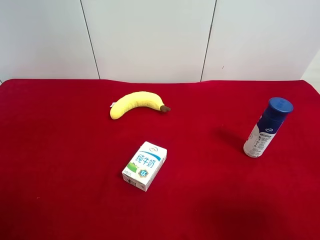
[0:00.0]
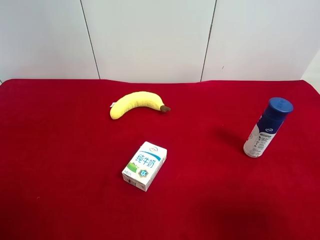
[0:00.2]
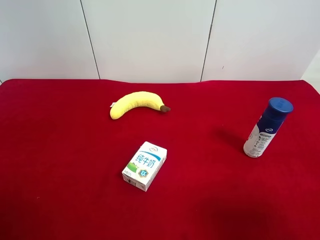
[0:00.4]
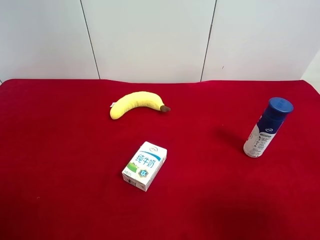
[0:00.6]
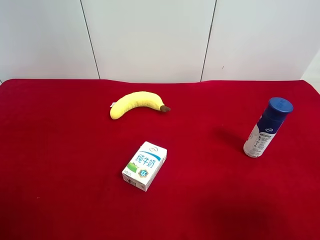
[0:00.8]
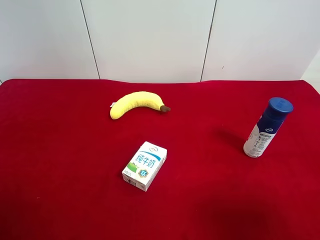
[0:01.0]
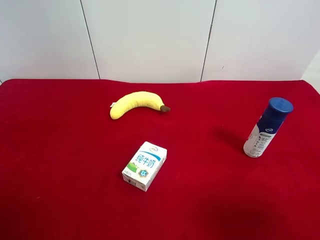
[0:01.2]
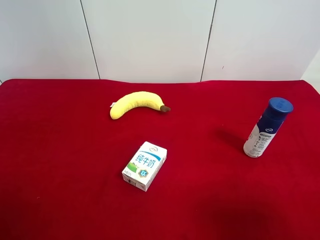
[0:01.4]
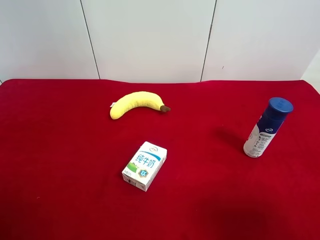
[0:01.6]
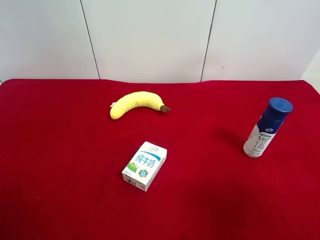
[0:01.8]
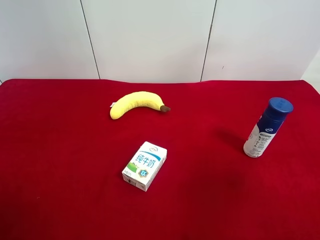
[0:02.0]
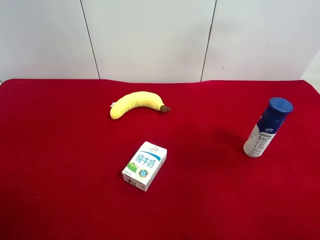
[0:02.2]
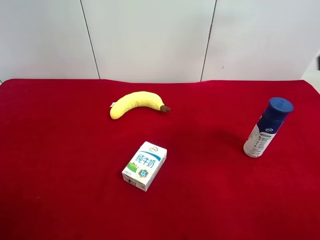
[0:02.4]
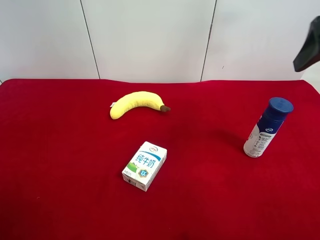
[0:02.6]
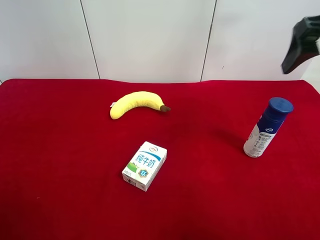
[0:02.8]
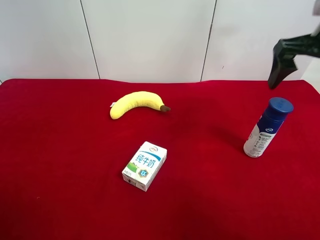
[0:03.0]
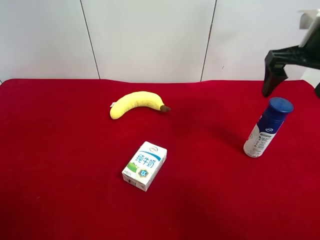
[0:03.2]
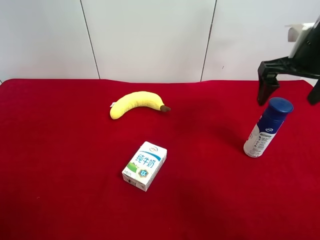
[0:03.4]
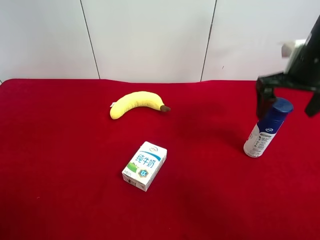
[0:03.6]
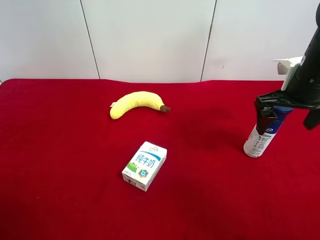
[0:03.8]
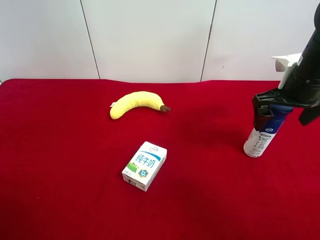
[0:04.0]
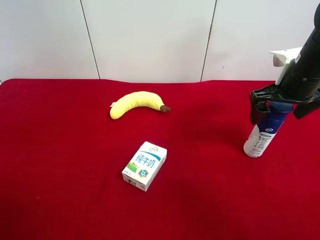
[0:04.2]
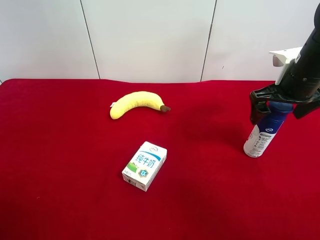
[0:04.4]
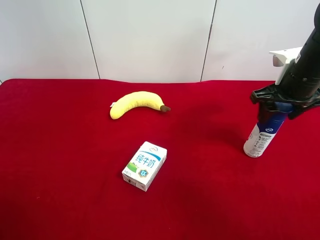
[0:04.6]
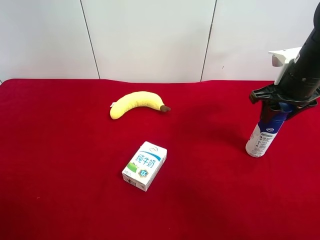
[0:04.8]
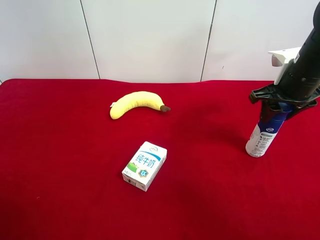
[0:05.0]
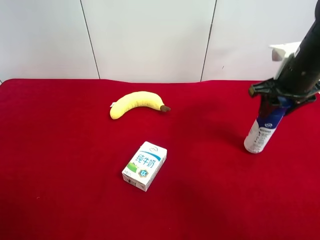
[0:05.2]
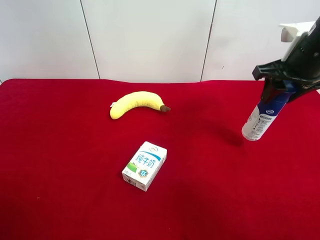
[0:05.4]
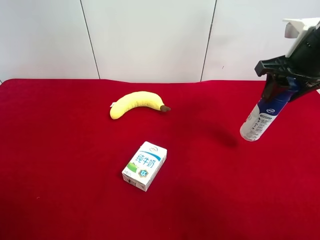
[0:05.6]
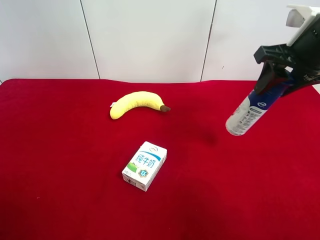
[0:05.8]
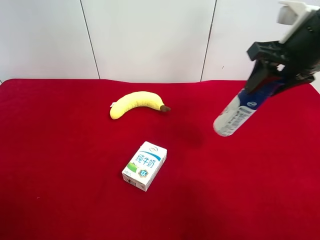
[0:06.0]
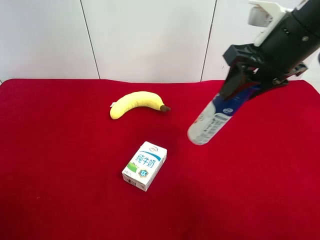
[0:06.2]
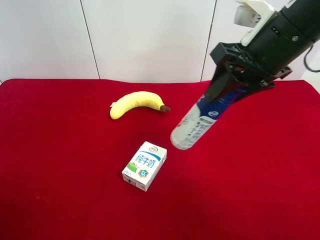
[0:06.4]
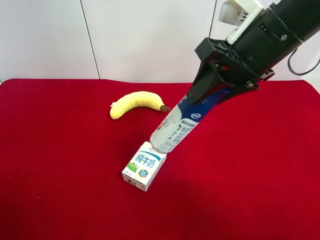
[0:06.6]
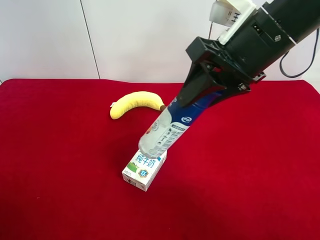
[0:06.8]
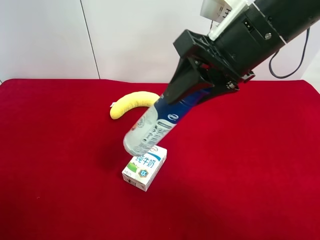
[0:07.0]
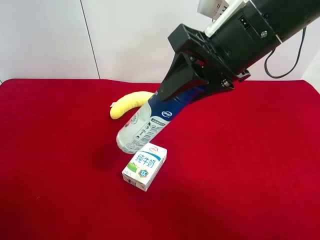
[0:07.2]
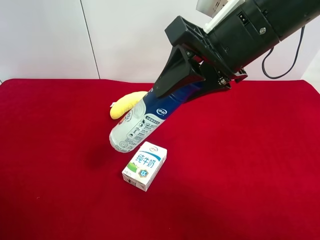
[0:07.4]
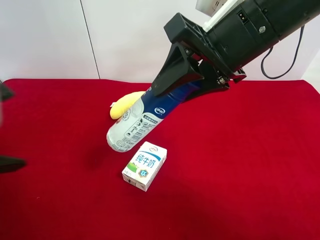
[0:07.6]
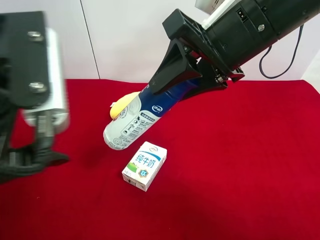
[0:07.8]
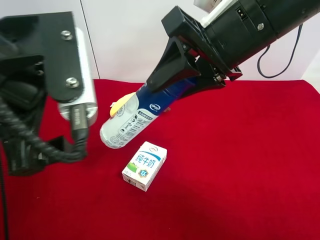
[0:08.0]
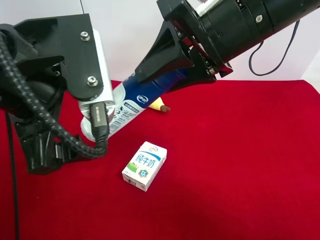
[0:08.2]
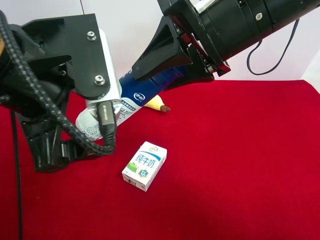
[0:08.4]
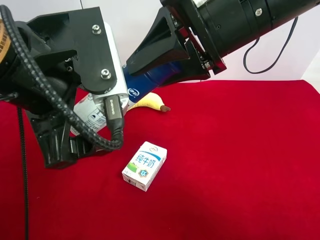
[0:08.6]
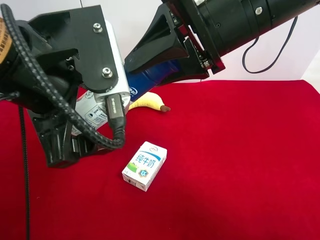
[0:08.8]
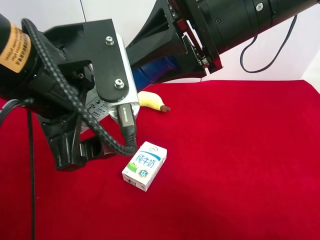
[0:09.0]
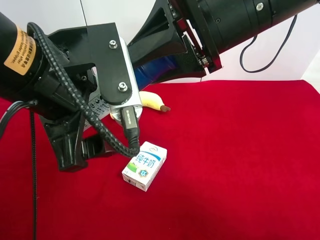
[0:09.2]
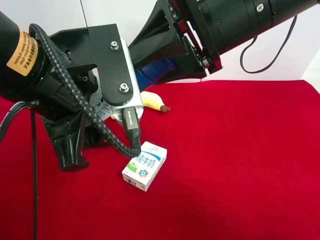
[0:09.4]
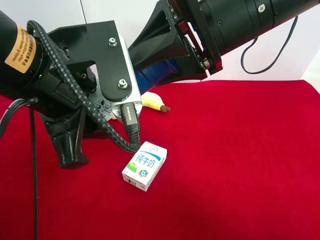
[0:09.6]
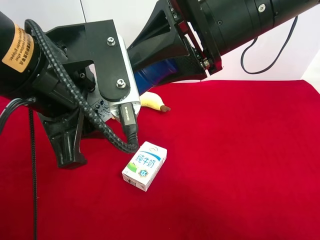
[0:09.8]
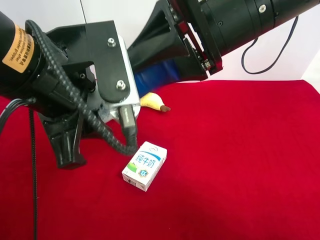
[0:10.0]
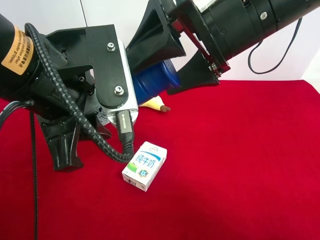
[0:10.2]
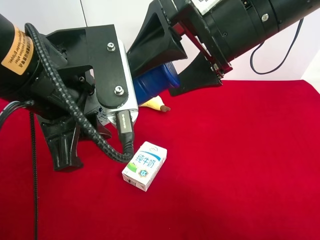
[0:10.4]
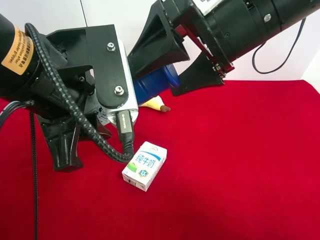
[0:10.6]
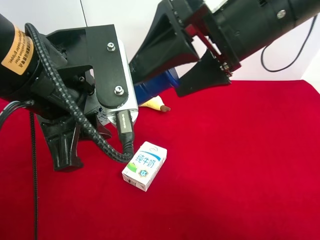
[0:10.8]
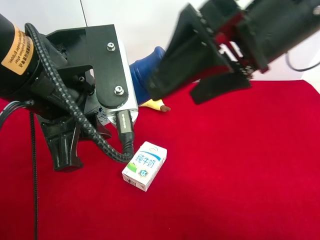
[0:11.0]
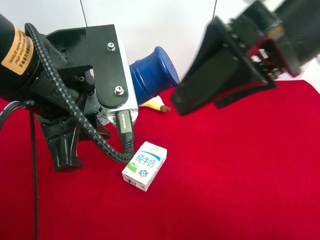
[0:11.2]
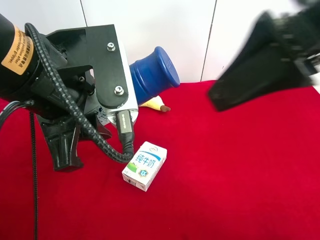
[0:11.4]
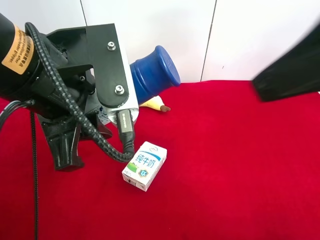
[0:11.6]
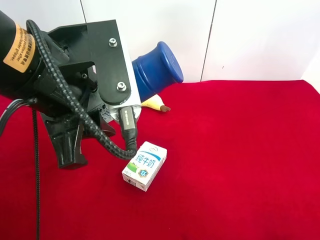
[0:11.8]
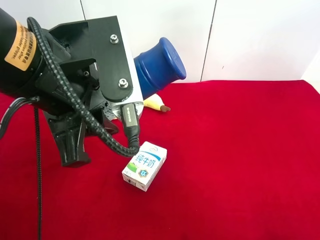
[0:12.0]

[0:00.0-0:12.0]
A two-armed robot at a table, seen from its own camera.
Task of the whole recording: use the right gripper to pick up the item and transfer it from the right gripper to the left gripper.
Step, 0.0 to 5.0 s: Use the right gripper to grab the Anmuxi on the right side of the table.
Step, 5.2 to 10.2 s: Pass the anmuxi to the left gripper.
0.0 to 1.6 s: Both grippers stay put.
1.6 to 3.0 s: The right gripper shifts some 30 cm forward.
3.0 to 4.4 s: The right gripper travels downward by roughly 10 cm.
4.4 to 6.0 s: The right gripper moves upward, roughly 10 cm, and closes its fingers.
6.0 to 7.6 s: The left gripper shifts some 15 cm forward, to the right and upward; the right gripper travels to the left by about 10 cm.
7.6 to 9.0 s: The left gripper travels to the right by about 10 cm.
9.0 to 10.4 s: The left gripper closes its fingers; the right gripper opens its fingers.
10.4 to 12.0 s: The right gripper shifts about 25 cm backward, to the right and upward.

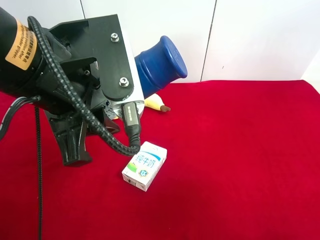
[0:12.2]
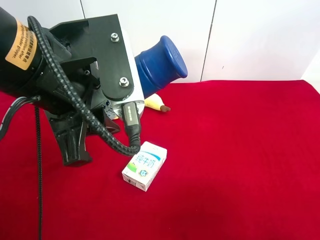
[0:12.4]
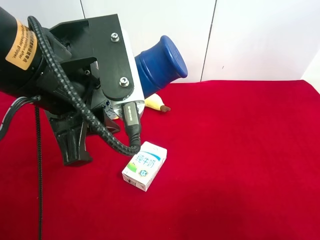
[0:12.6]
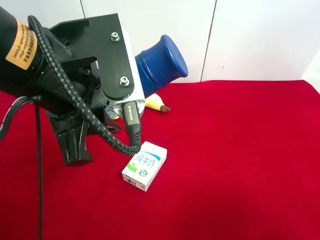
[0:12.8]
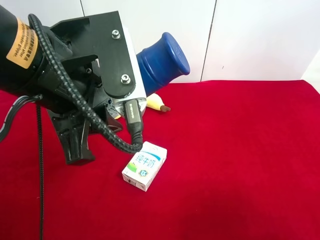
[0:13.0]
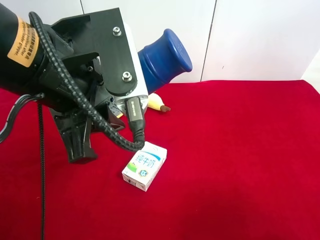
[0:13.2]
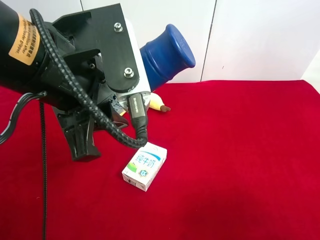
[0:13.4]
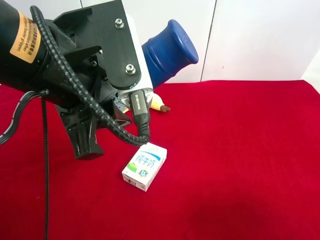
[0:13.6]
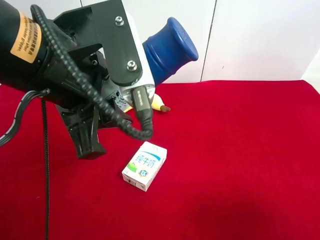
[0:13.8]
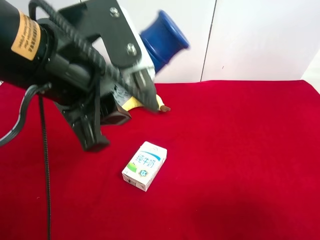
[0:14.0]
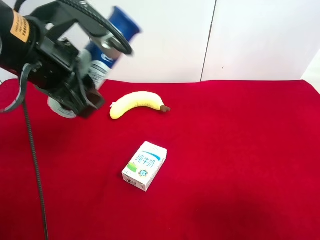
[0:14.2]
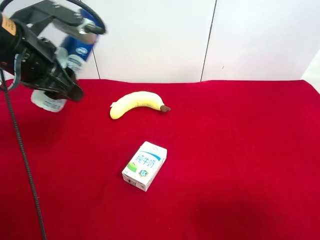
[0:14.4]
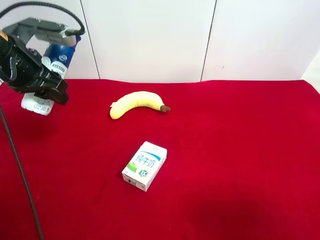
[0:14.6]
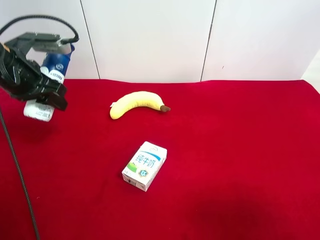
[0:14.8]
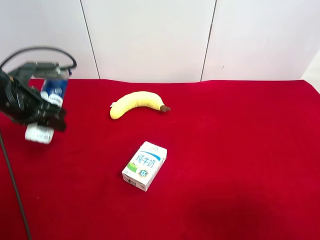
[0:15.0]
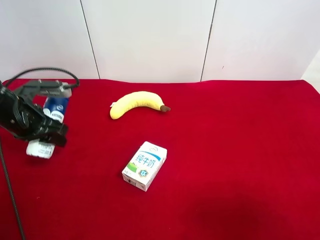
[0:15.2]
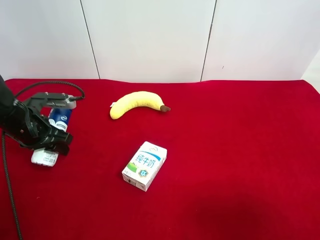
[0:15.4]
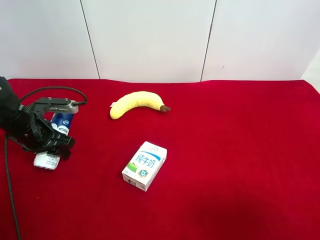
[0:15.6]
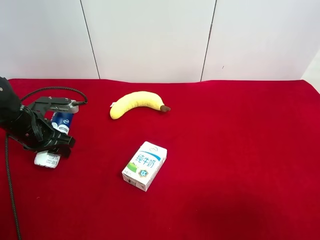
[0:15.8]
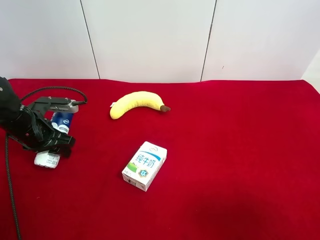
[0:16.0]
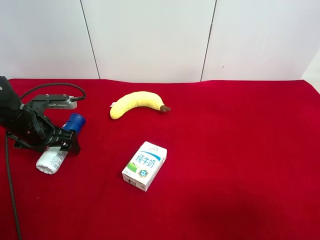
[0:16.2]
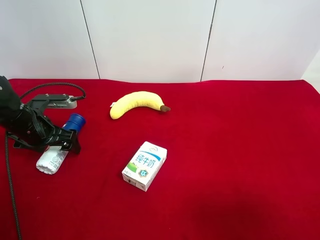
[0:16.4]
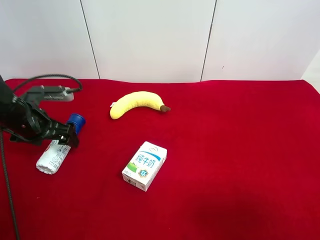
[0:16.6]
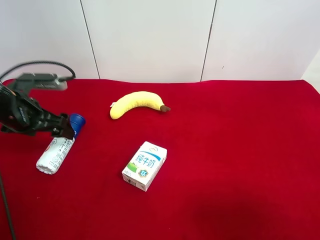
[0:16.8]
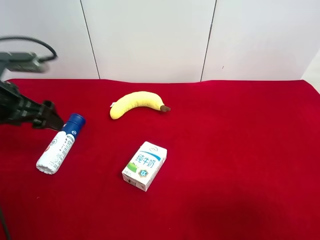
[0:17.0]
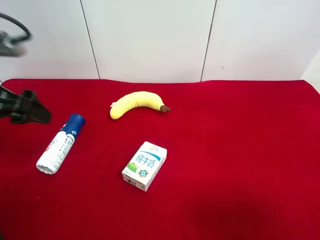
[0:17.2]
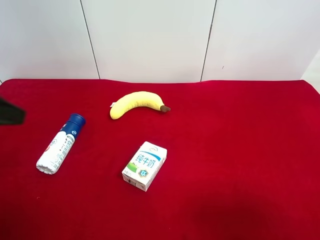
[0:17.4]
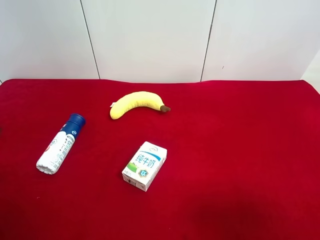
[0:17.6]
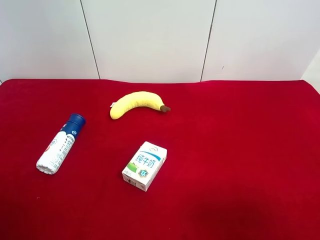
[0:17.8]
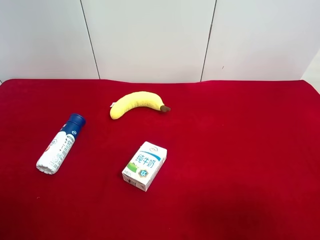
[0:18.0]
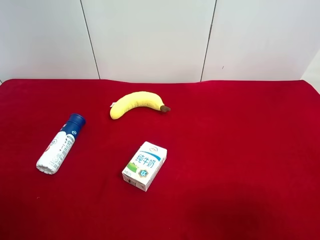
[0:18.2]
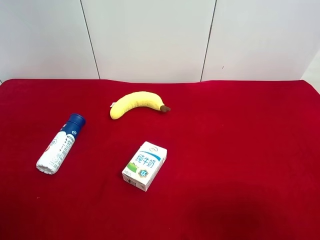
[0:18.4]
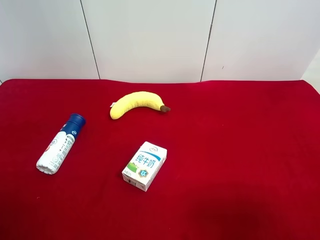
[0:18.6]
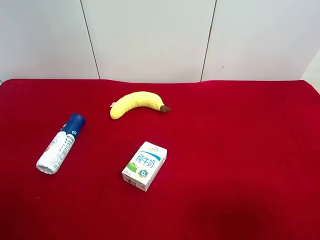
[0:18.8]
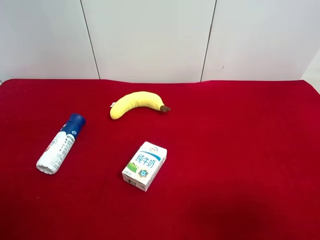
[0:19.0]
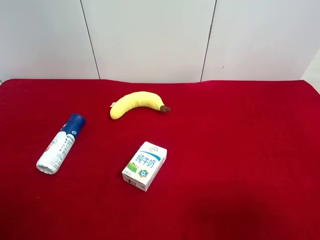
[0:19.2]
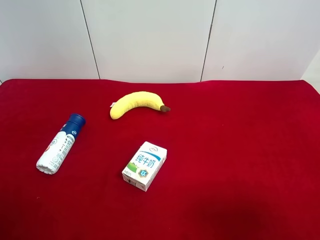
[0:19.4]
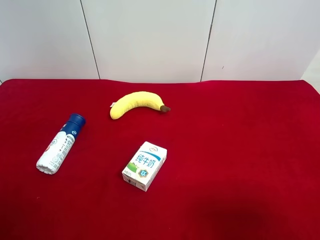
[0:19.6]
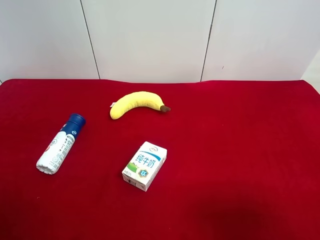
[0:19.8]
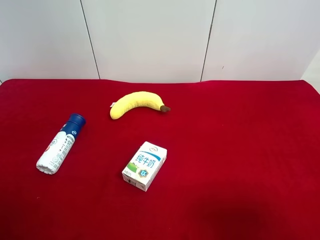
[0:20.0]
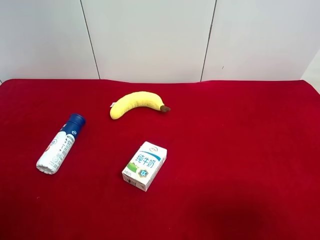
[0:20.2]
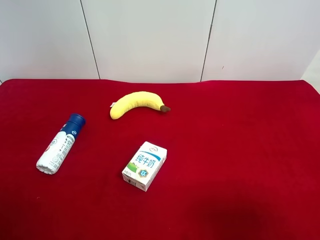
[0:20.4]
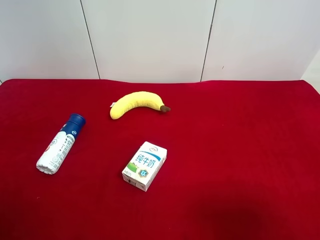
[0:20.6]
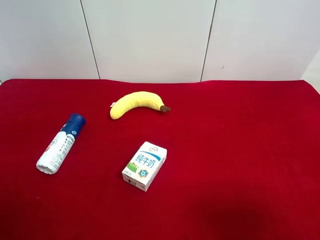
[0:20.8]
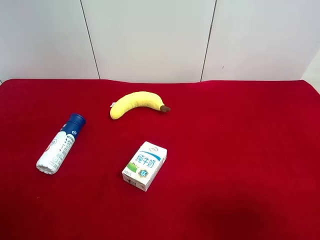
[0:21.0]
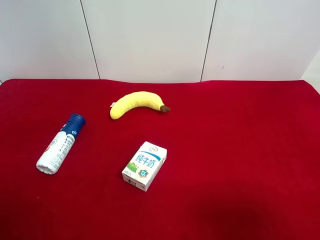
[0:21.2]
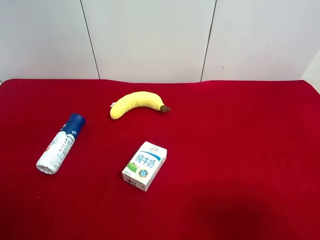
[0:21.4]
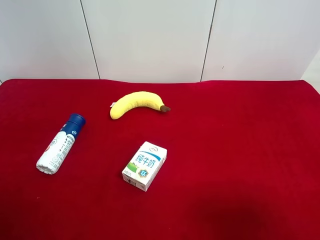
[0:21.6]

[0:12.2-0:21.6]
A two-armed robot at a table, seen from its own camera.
Task of the whole recording: use the right gripper to pick up the item and transfer it from the right gripper to the left gripper.
Step, 12.2 to 16.4 s: The left gripper places anmuxi on the left side of the table.
12.2 to 13.8 s: The right gripper moves downward, approximately 10 cm.
13.8 to 15.4 s: The left gripper shifts roughly 30 cm downward, to the left and forward.
15.4 to 17.0 s: The left gripper heads upward, covering approximately 10 cm, and opens.
17.0 to 18.4 s: The left gripper goes about 25 cm backward.
20.0 to 21.6 s: Both grippers stay about where they are.

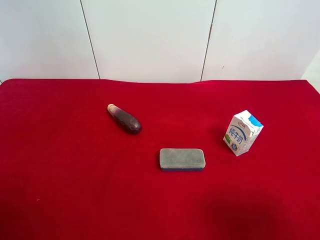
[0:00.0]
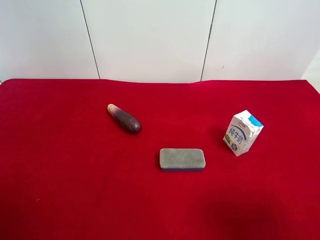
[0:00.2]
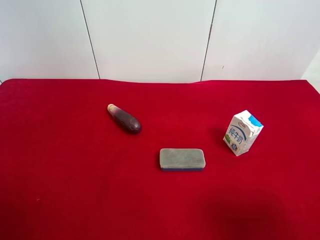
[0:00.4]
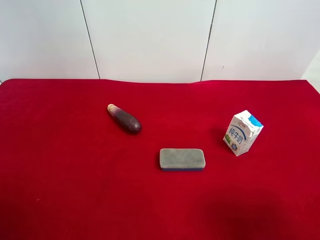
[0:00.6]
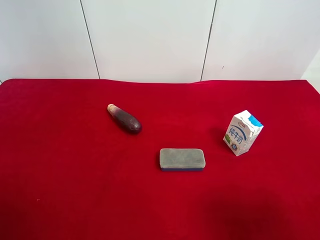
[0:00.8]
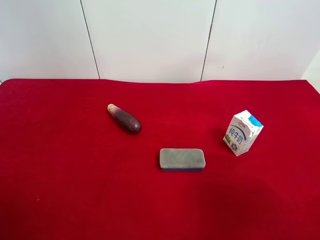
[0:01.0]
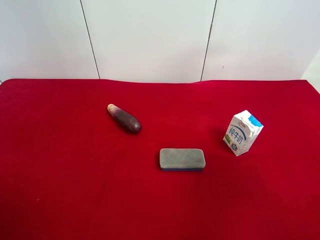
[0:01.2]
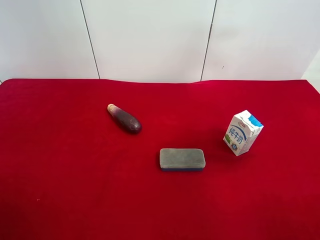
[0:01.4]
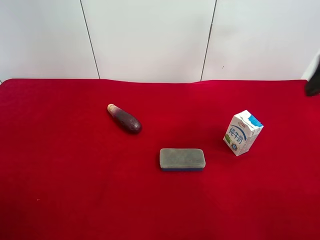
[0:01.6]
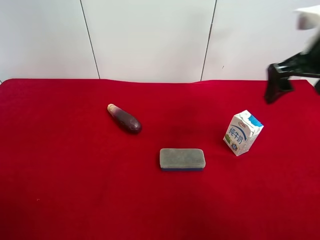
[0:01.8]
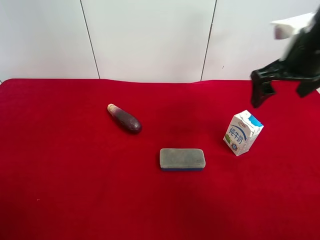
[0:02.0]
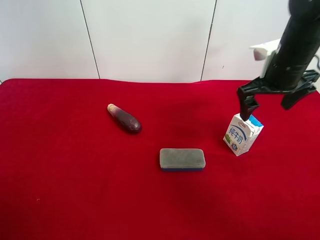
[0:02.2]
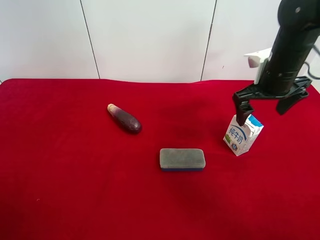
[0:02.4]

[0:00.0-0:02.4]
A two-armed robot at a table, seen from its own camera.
Task of the whole recording: use the right gripper to pick up the item and transfer it from the right gripper to the left gripper.
1.2 to 2.4 s: The right gripper shifts approximately 25 cm forward and downward.
